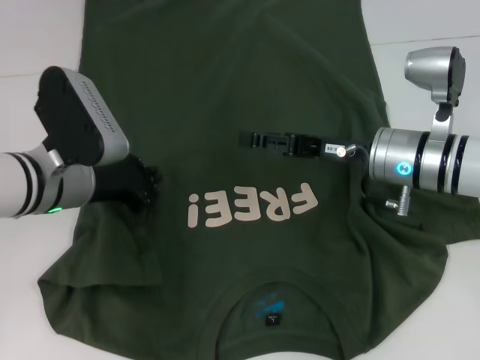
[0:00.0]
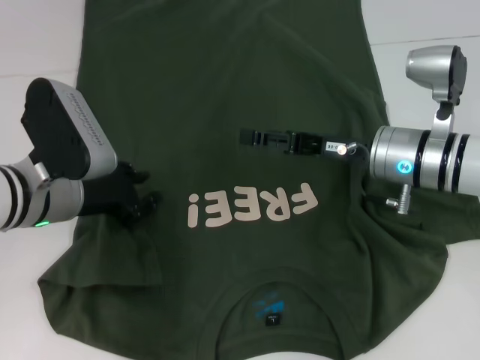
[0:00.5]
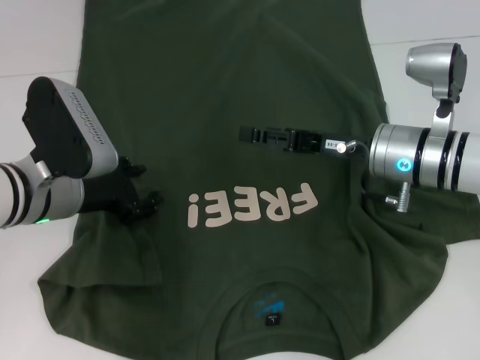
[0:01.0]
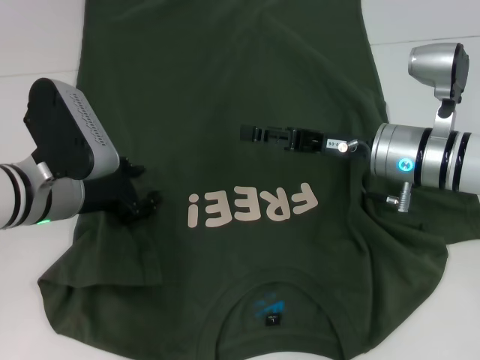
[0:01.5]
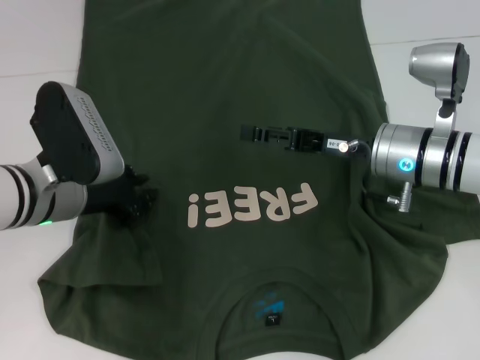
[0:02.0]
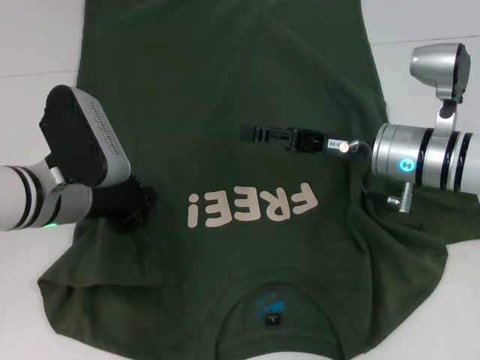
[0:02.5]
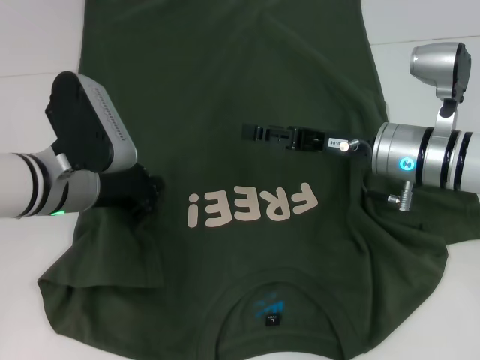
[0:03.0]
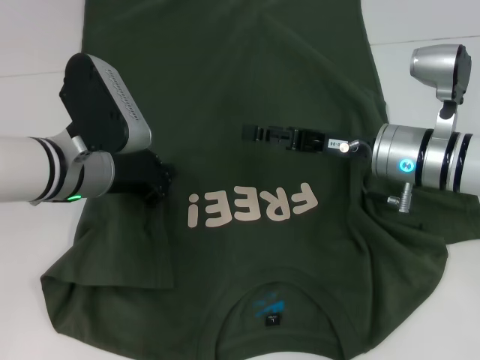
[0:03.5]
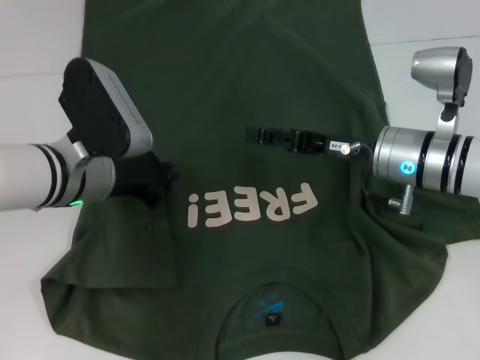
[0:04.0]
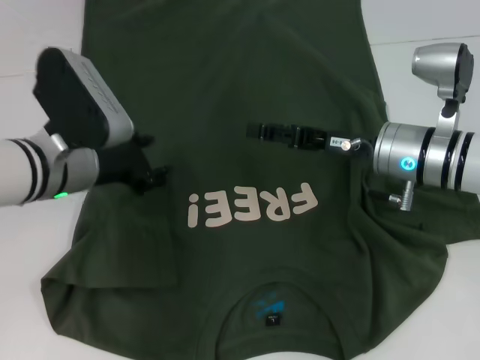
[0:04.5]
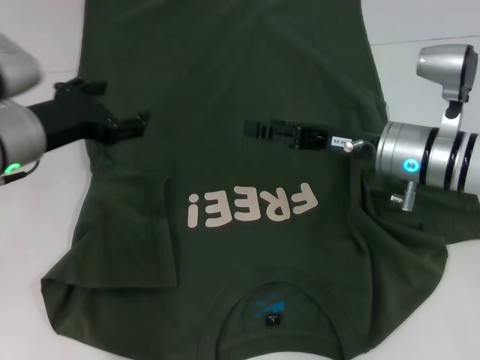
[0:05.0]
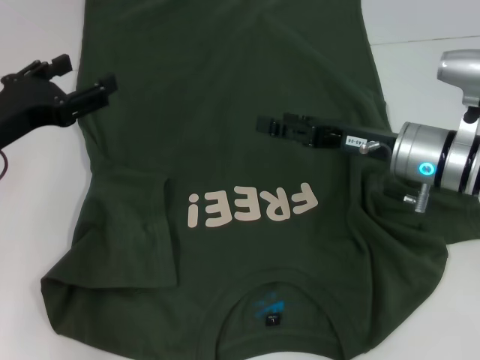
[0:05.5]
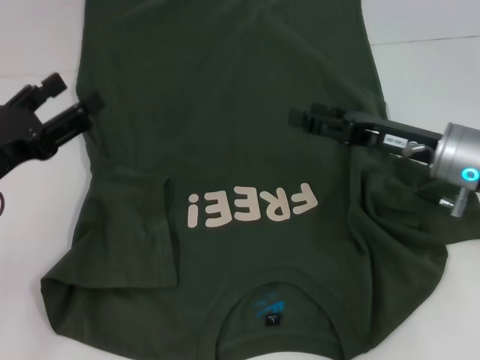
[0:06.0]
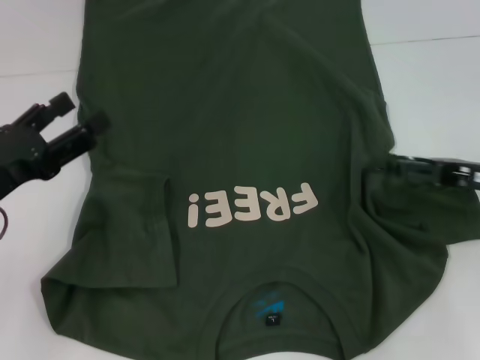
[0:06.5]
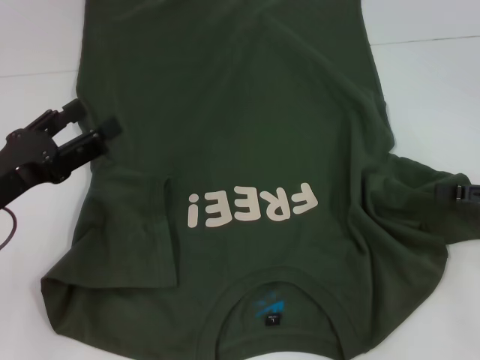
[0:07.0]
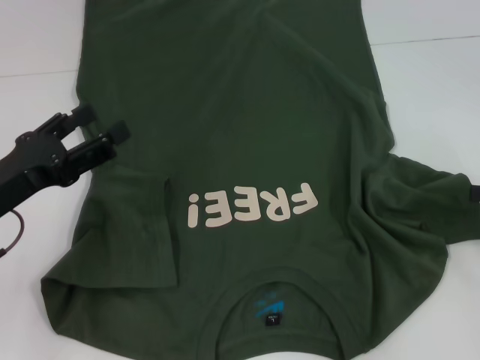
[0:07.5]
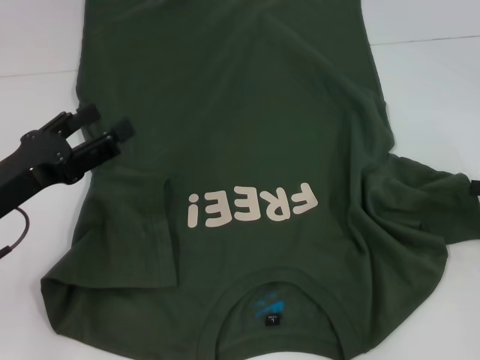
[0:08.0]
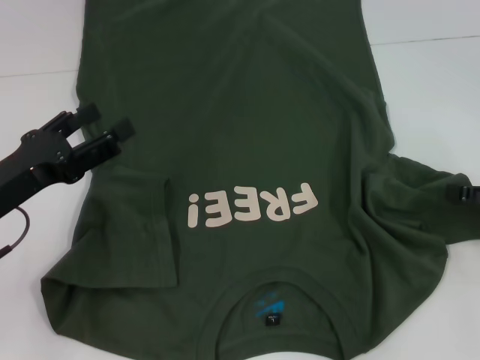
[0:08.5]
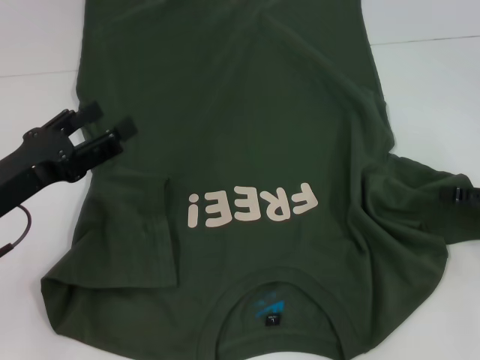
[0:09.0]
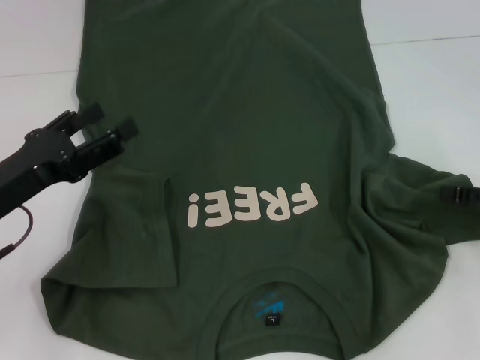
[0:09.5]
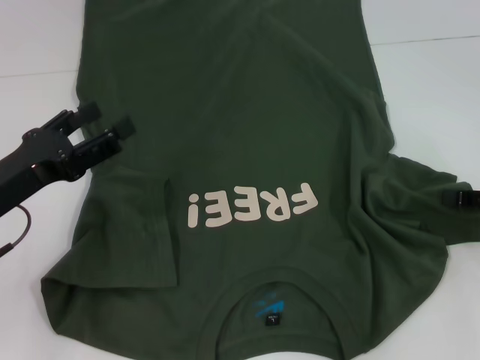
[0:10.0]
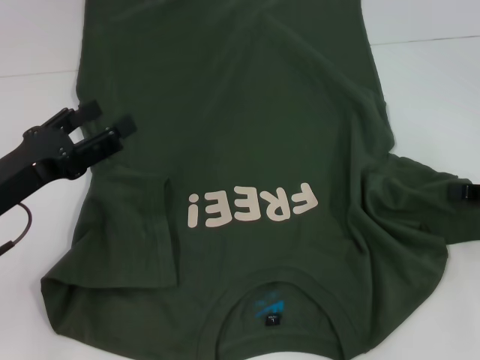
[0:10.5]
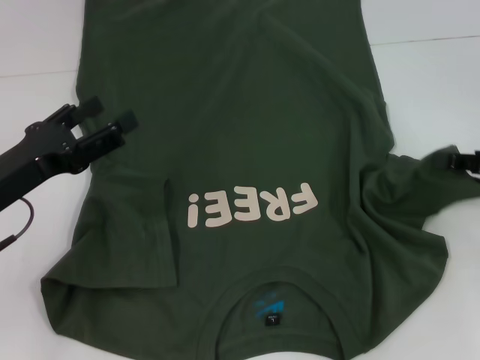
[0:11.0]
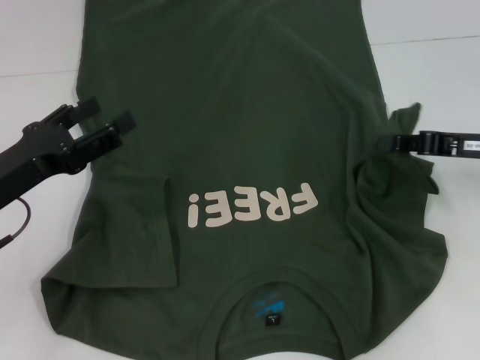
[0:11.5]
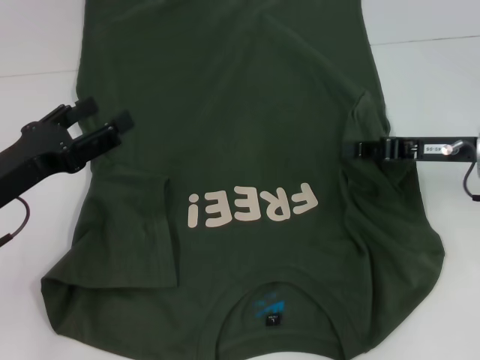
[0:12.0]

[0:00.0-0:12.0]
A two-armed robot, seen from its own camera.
0:00.0 to 0:02.0: The left gripper opens its fingers.
0:02.0 to 0:04.0: The left gripper closes its fingers.
0:04.0 to 0:06.0: The right gripper changes place by roughly 5 cm. The left gripper moves to the left and backward, some 15 cm, and opens its fingers.
0:06.0 to 0:08.0: The right gripper is displaced to the right and backward by approximately 20 cm.
0:10.0 to 0:12.0: The right gripper is displaced to the left and forward by roughly 10 cm, and closes its fingers.

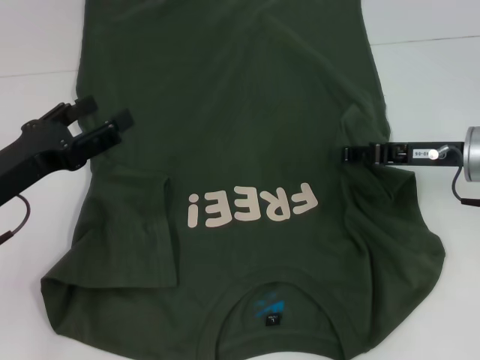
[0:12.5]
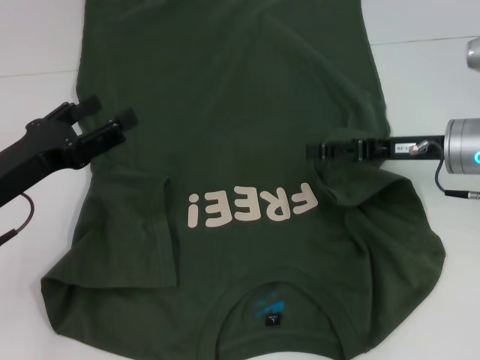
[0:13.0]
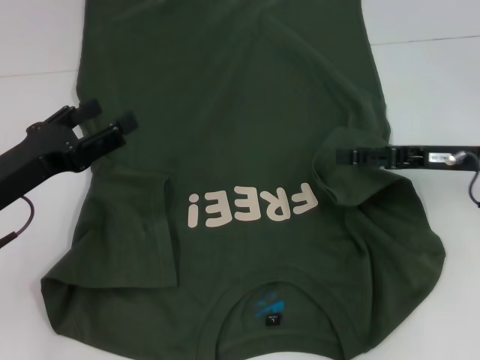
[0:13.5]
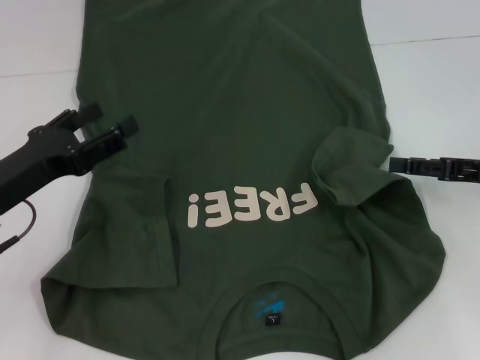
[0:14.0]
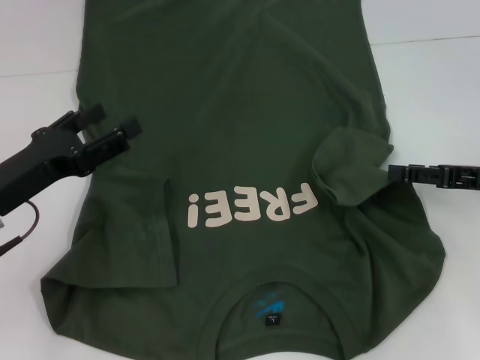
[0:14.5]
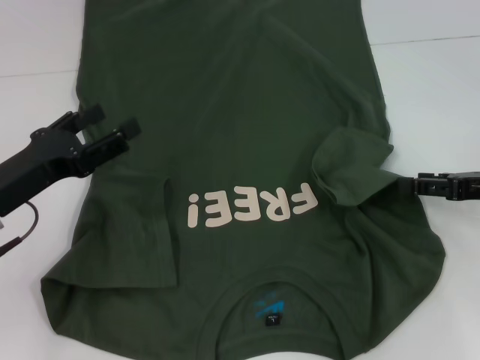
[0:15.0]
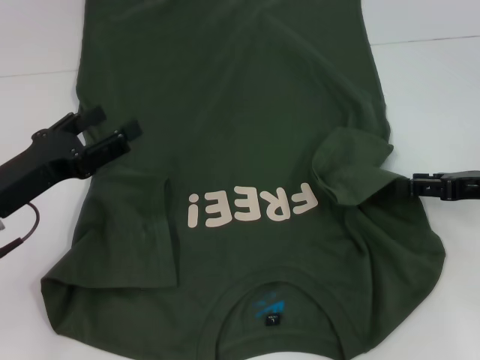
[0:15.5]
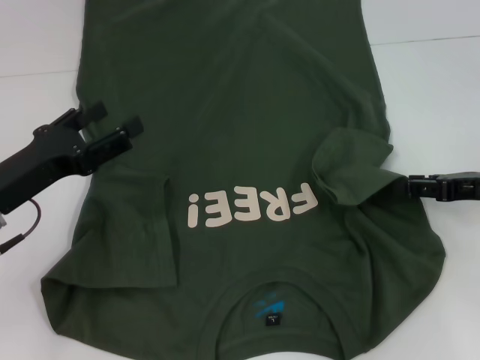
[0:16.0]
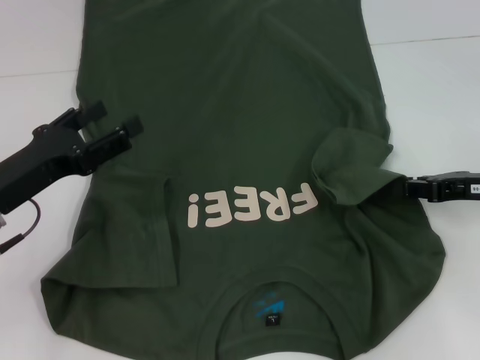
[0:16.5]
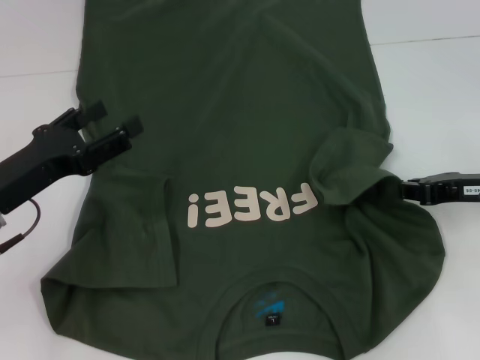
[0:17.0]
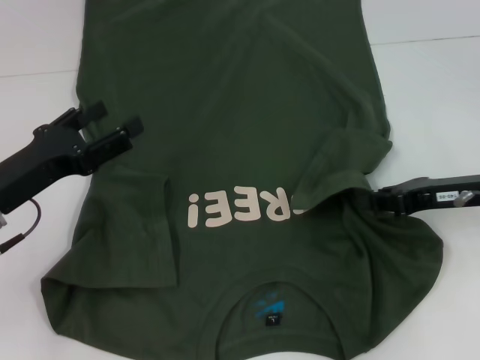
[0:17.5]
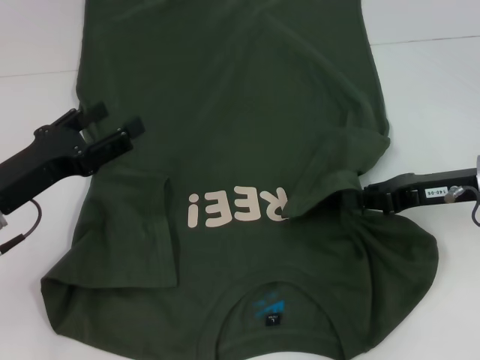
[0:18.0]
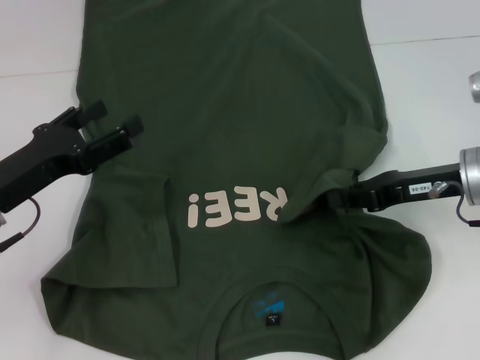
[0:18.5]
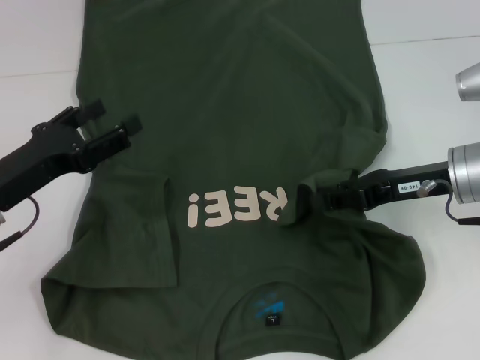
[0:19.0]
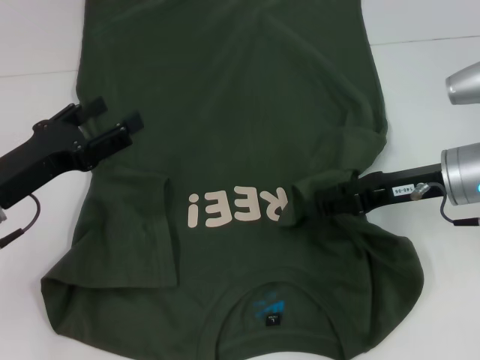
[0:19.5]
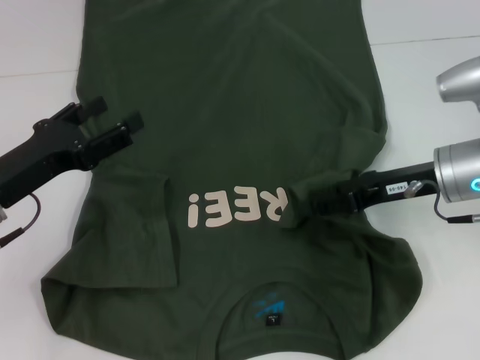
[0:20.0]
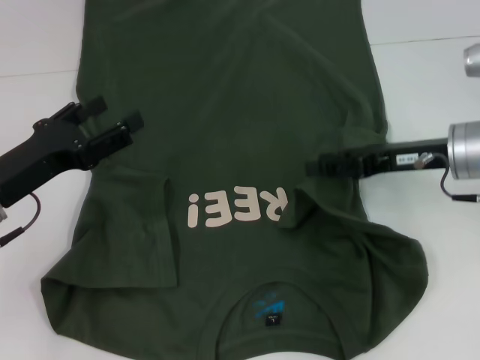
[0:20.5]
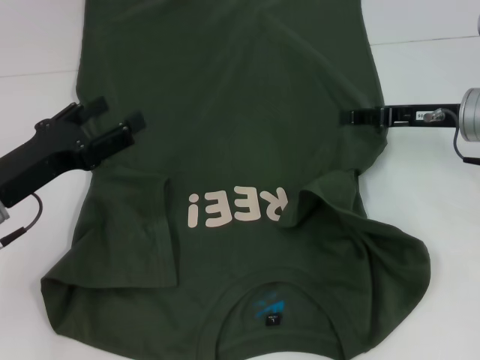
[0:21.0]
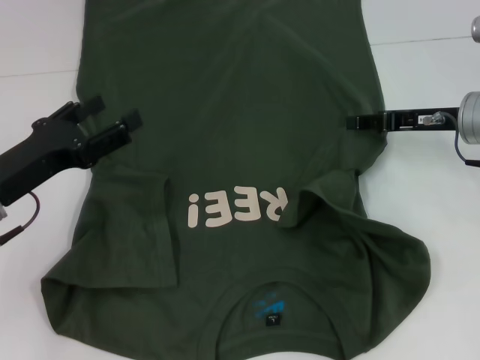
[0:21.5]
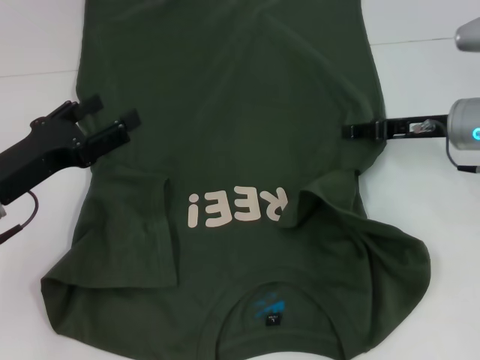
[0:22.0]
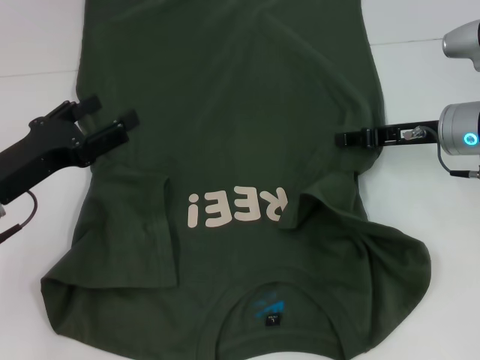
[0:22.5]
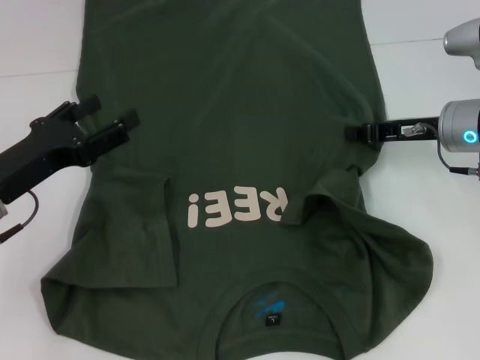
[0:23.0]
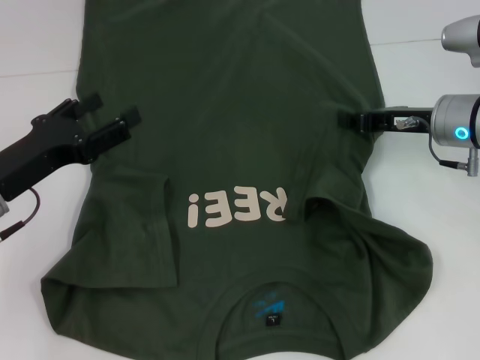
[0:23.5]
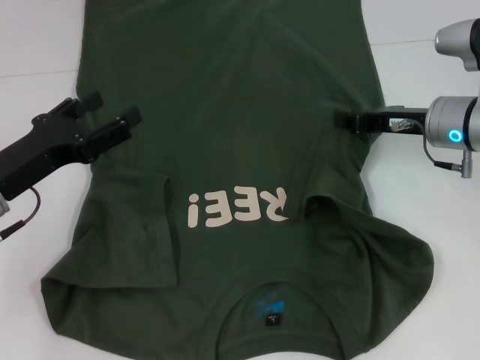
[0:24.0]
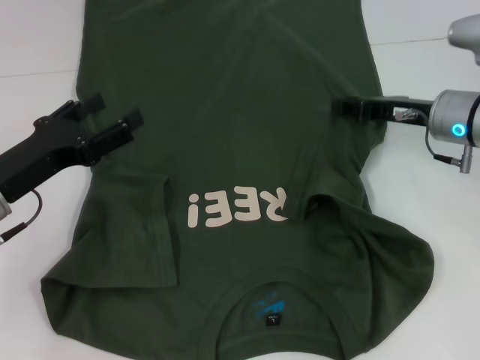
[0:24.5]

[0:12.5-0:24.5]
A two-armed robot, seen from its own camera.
0:12.5 to 0:14.5: The right gripper moves to the right, some 5 cm, and opens its fingers.
0:14.5 to 0:16.5: There are only small adjustments of the grippers.
0:16.5 to 0:18.5: The right gripper goes some 5 cm to the left, and closes.
0:18.5 to 0:20.5: The right gripper opens its fingers.
0:22.5 to 0:24.5: The right gripper closes.

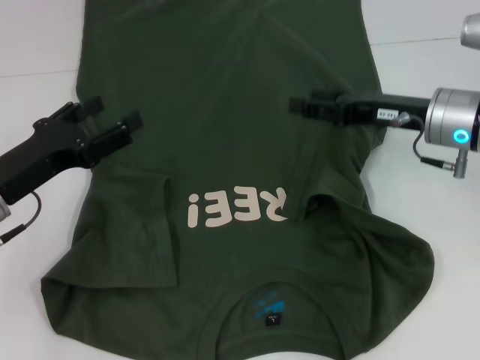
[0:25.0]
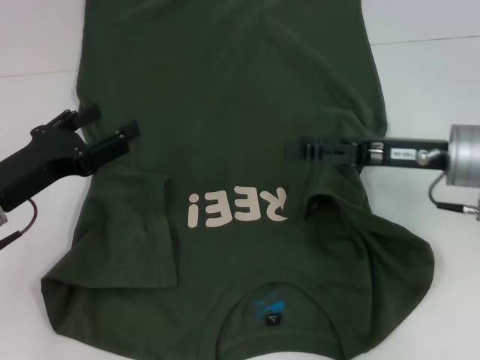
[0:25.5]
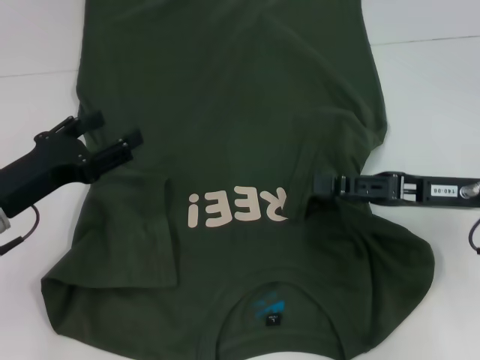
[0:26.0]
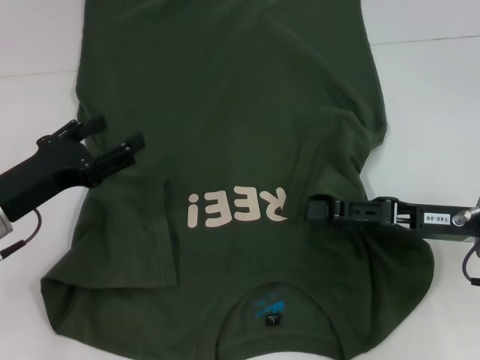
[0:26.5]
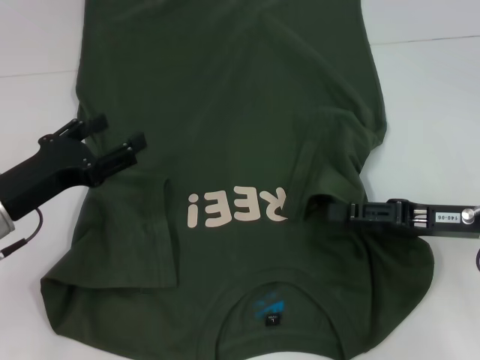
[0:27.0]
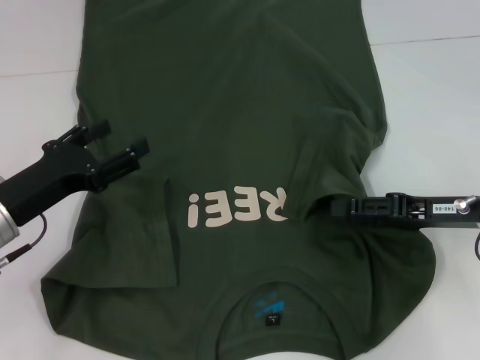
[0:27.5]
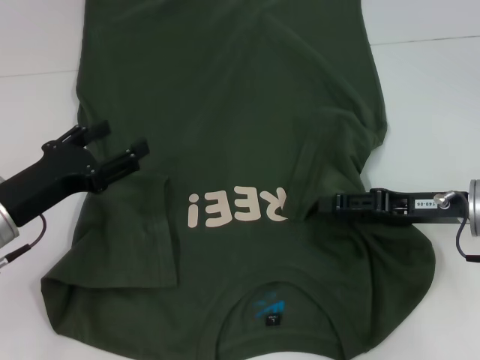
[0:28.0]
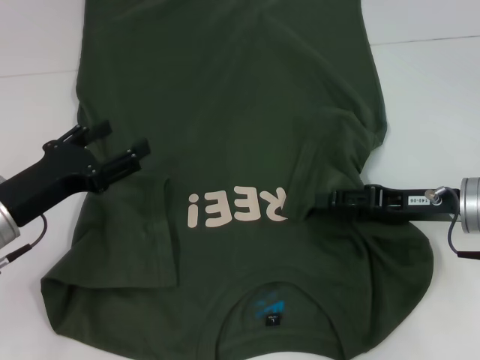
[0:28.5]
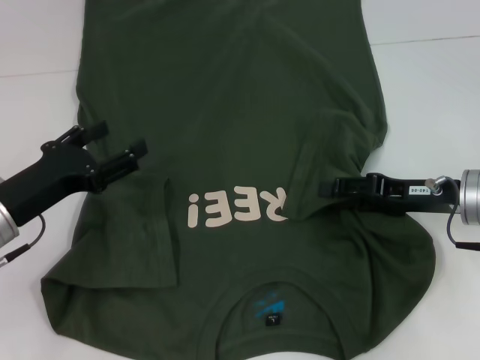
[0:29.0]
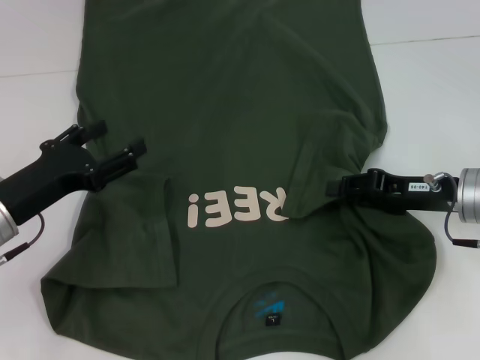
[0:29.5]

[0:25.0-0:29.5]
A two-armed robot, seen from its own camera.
0:25.0 to 0:27.0: The right gripper is displaced backward by roughly 10 cm.
0:27.0 to 0:29.5: The grippers stay close to where they were, moving slightly.
